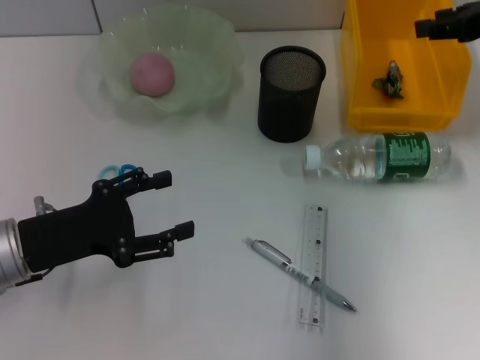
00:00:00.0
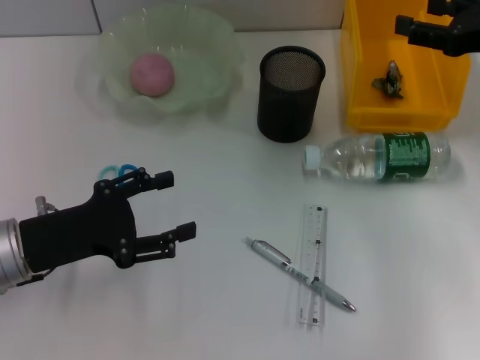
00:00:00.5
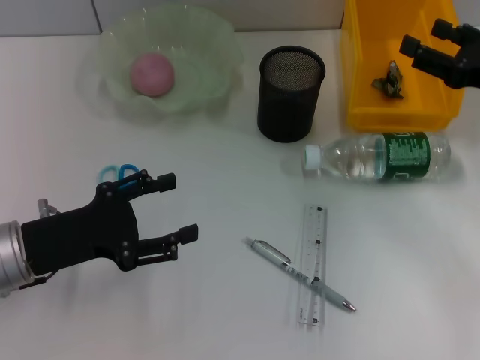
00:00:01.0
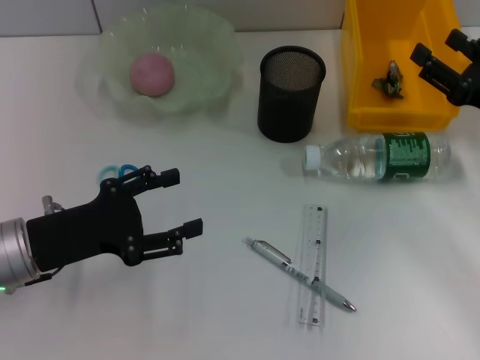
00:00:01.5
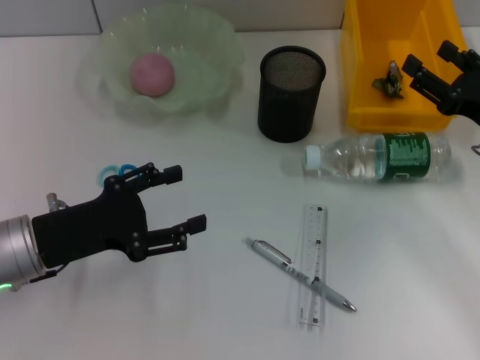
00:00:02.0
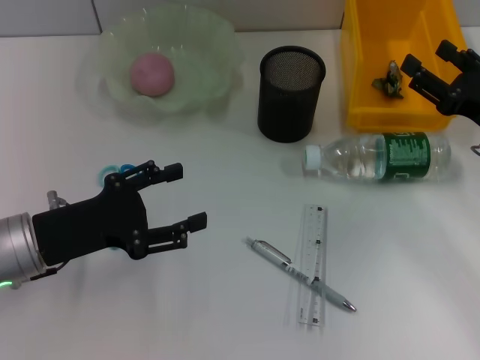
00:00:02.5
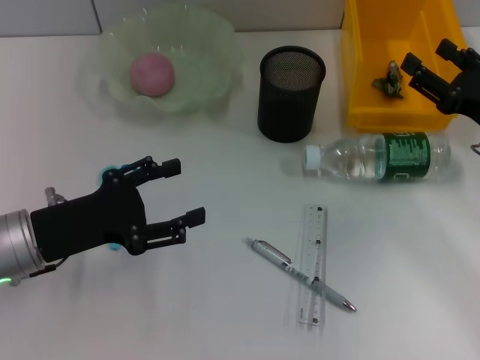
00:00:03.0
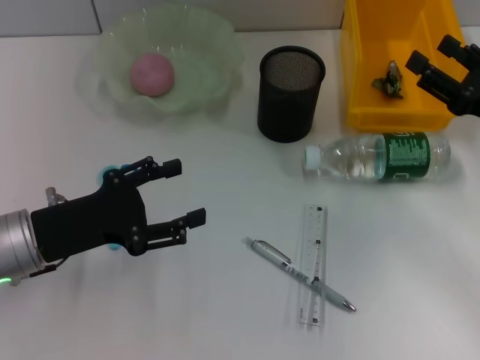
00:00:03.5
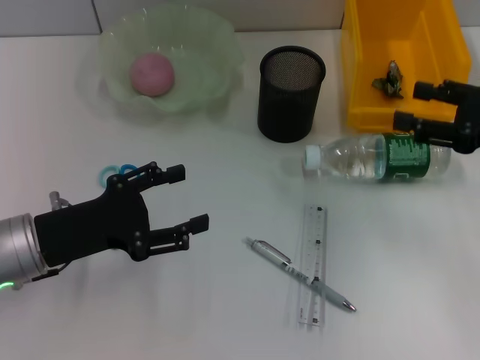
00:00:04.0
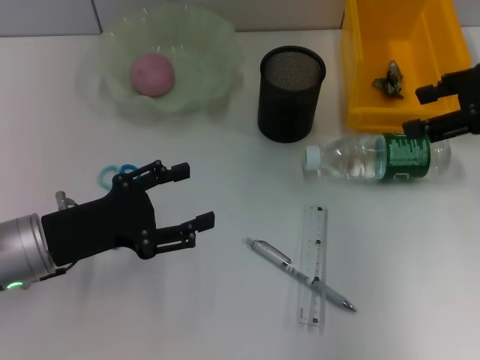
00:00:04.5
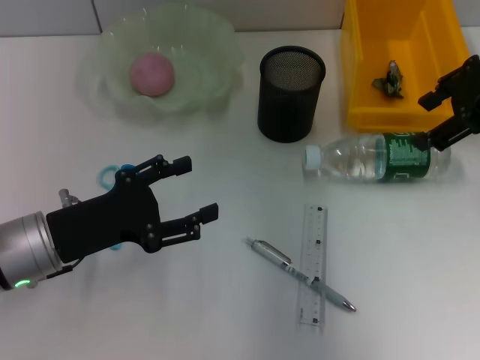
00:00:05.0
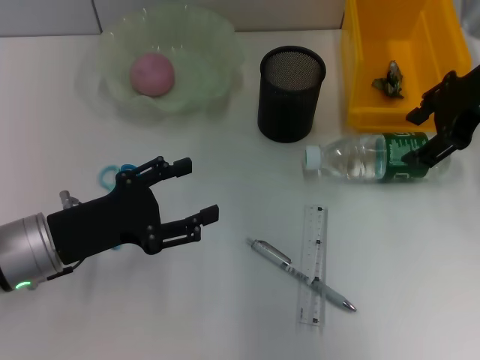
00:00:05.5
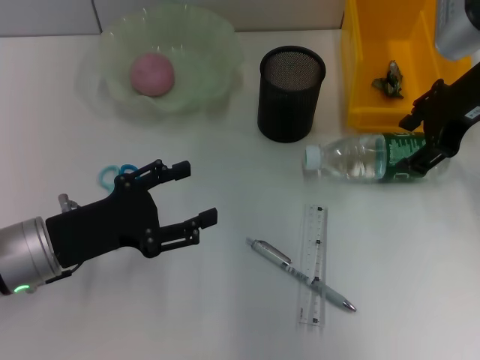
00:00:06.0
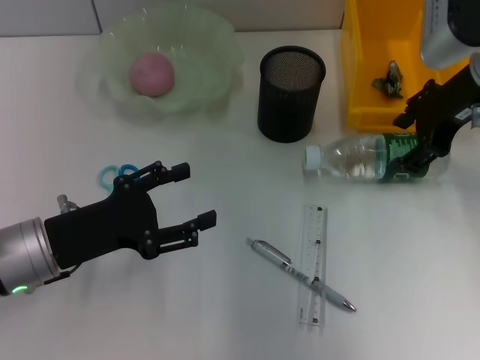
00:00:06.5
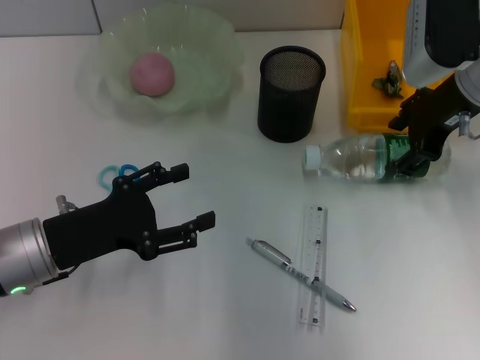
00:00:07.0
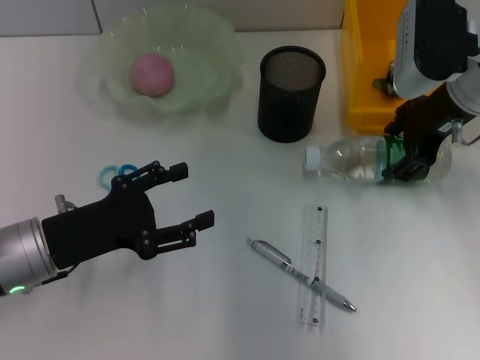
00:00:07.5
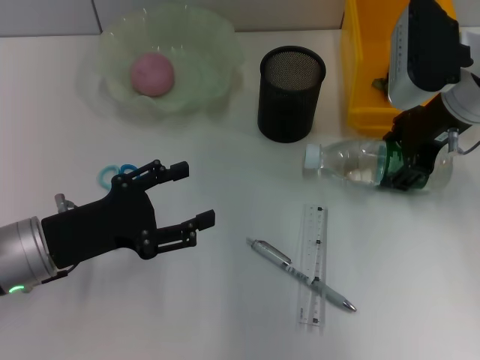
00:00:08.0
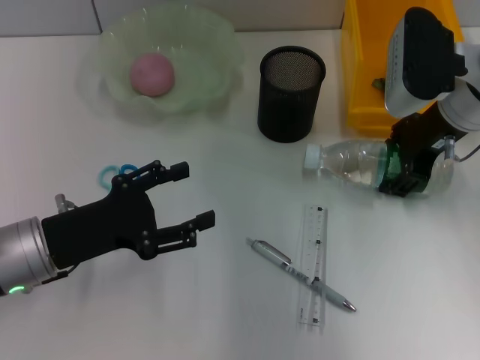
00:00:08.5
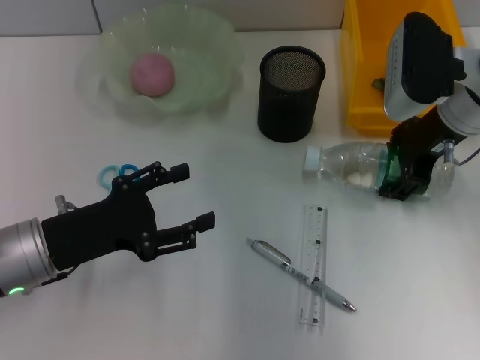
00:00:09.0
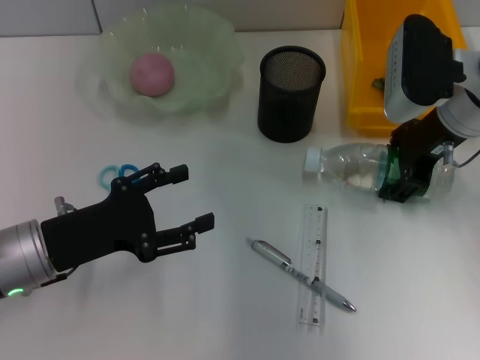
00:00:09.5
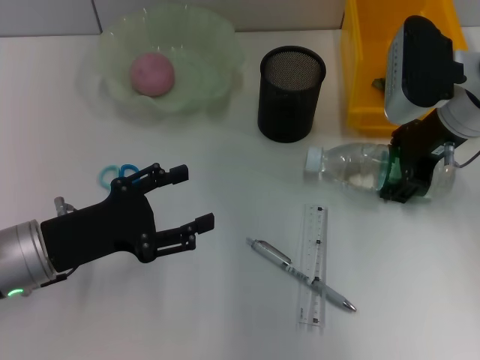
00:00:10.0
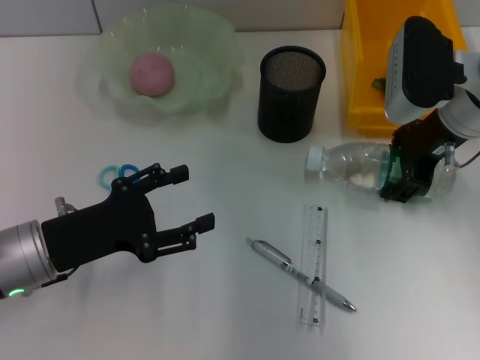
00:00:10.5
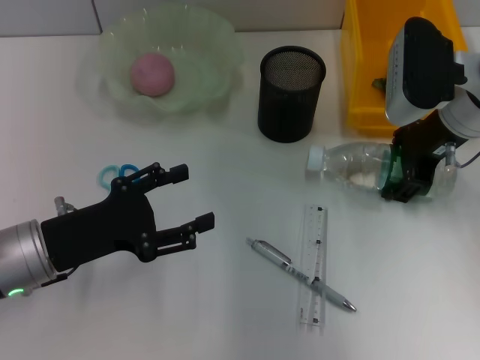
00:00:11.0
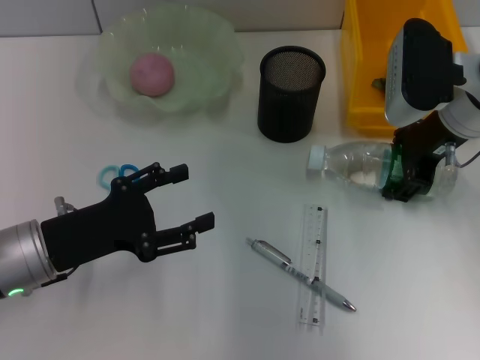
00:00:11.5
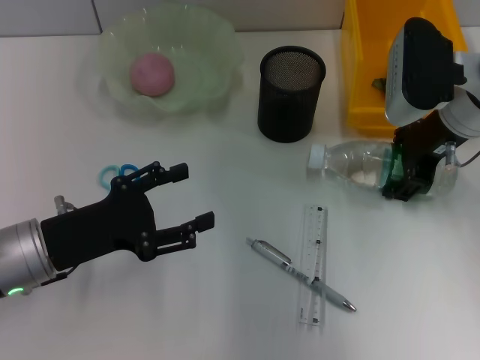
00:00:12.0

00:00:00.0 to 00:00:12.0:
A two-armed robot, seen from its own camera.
00:00:00.0 to 00:00:02.0: The right gripper heads downward and backward, covering roughly 15 cm, and opens up.
00:00:02.0 to 00:00:04.0: The right gripper is displaced upward by roughly 5 cm.
00:00:04.0 to 00:00:06.0: The right gripper shifts some 15 cm to the left, forward and upward.
00:00:06.0 to 00:00:10.0: There are only small adjustments of the grippers.
00:00:10.0 to 00:00:12.0: Both grippers stay put.

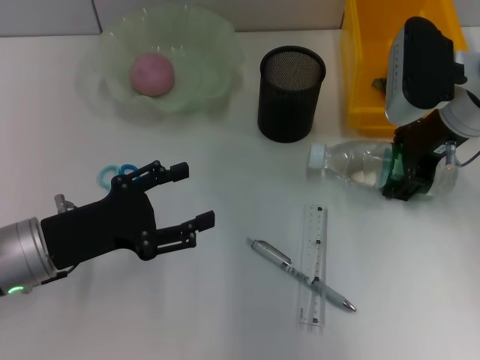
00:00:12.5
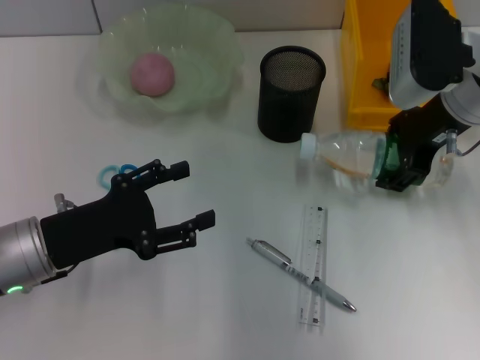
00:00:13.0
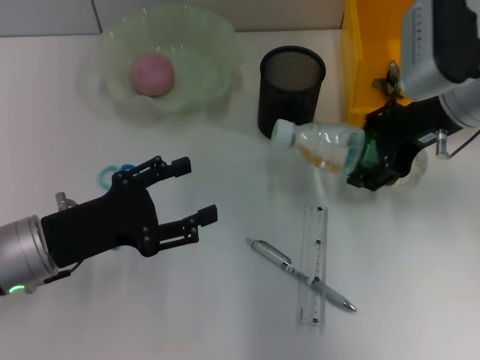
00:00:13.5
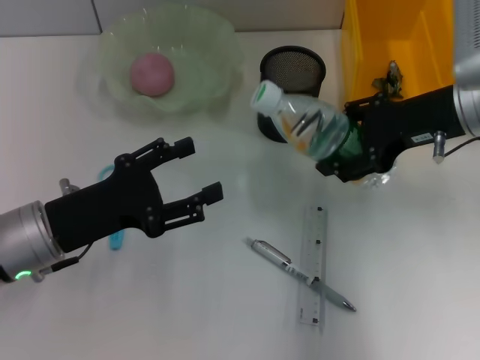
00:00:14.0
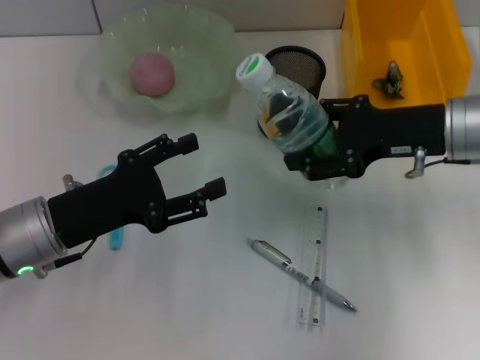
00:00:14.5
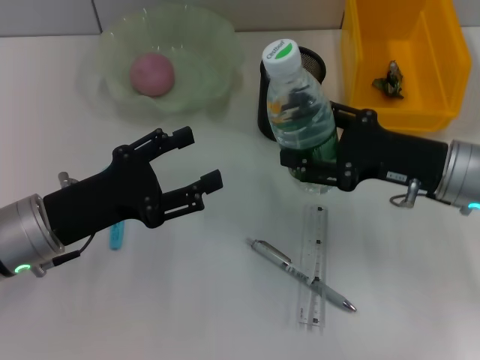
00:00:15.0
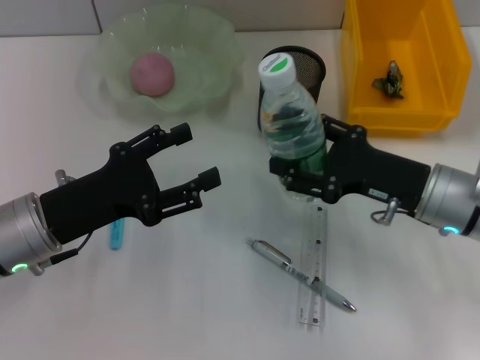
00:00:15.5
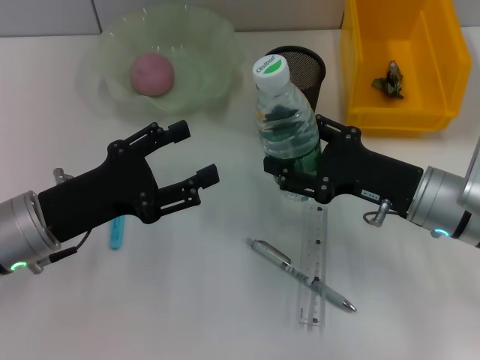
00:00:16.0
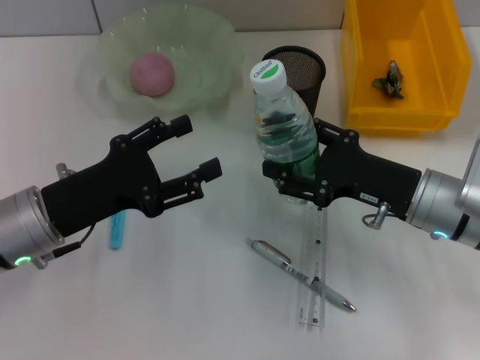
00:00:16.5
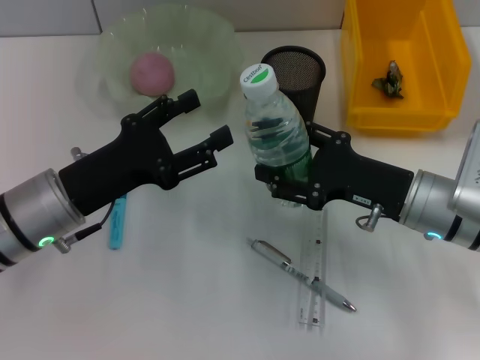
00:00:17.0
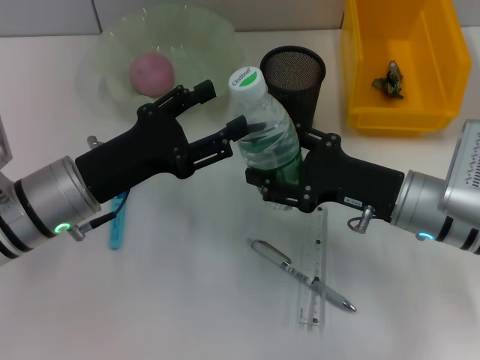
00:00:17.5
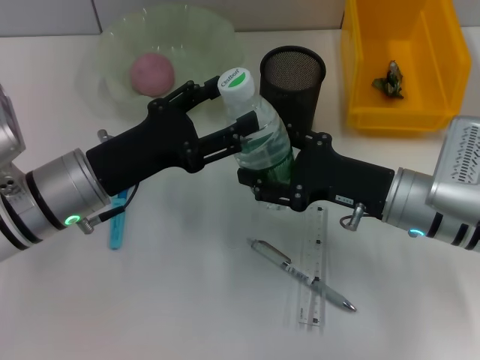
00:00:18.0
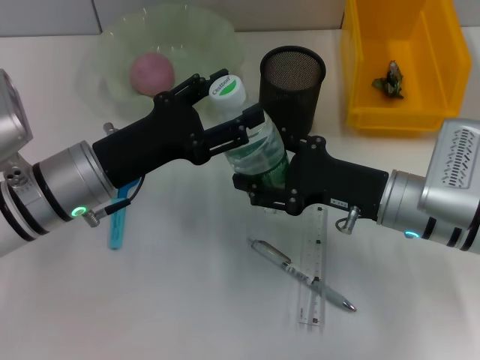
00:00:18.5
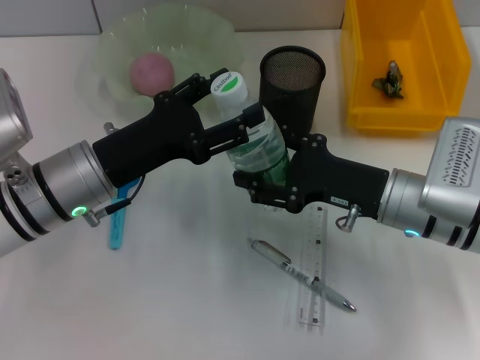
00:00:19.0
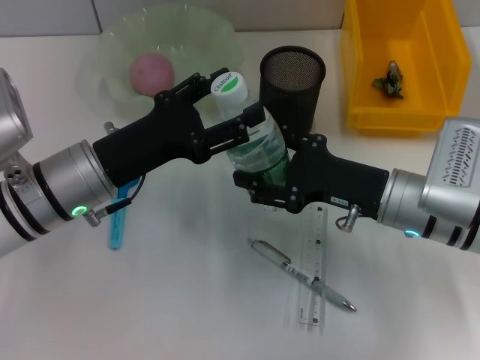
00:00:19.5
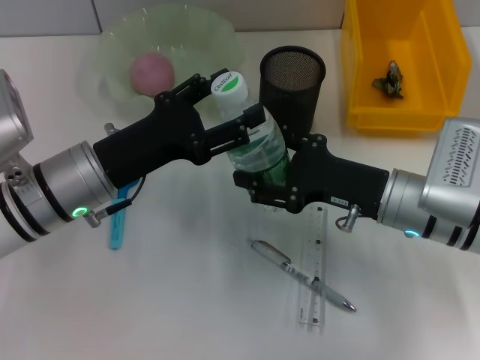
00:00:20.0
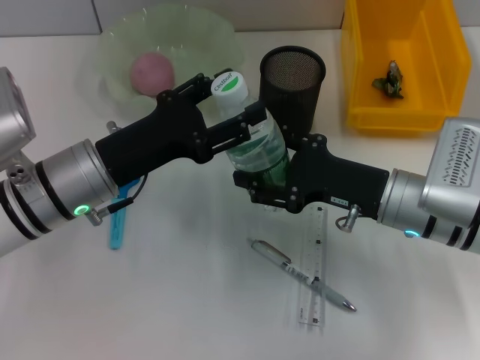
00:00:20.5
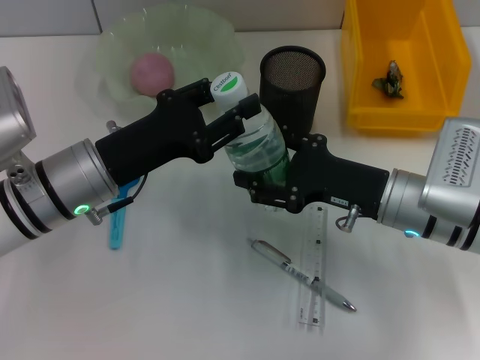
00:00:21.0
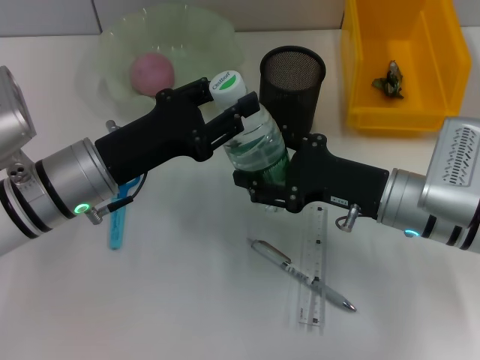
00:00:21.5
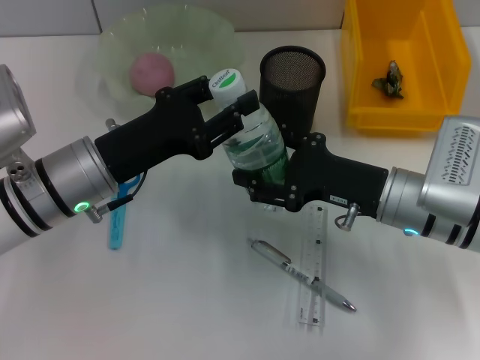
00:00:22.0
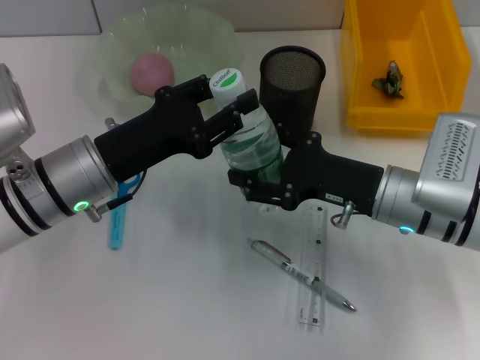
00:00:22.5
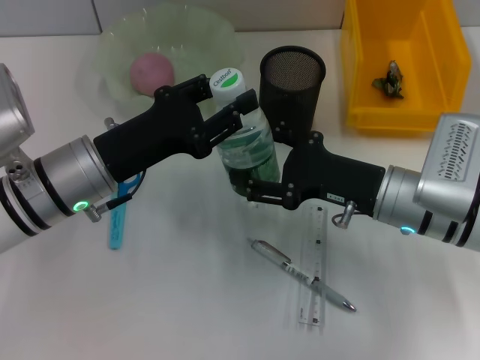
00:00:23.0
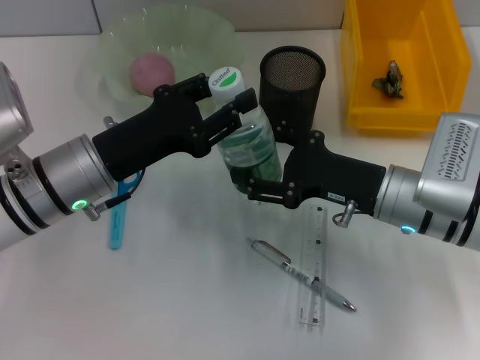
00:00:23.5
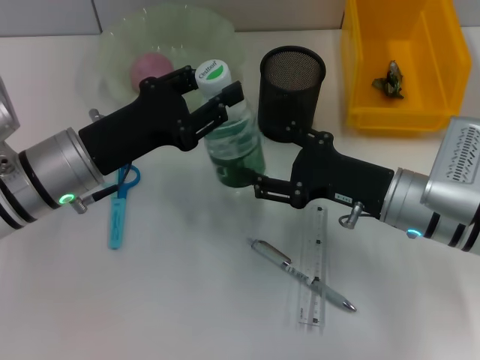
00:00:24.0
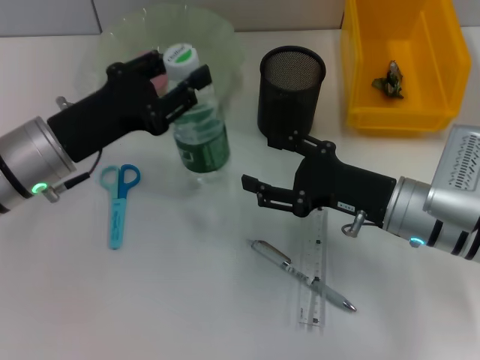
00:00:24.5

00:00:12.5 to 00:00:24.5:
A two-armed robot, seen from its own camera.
Step, 00:00:13.0 to 00:00:24.0: Pass the water bottle from the right hand to the left hand.
00:00:12.5 to 00:00:14.5: The right gripper moves approximately 5 cm.
00:00:14.5 to 00:00:16.5: The right gripper shifts approximately 10 cm downward and backward.
00:00:16.5 to 00:00:18.5: The left gripper changes place by about 5 cm.
00:00:18.5 to 00:00:20.5: Both grippers stay about where they are.
00:00:20.5 to 00:00:22.5: The left gripper closes up.

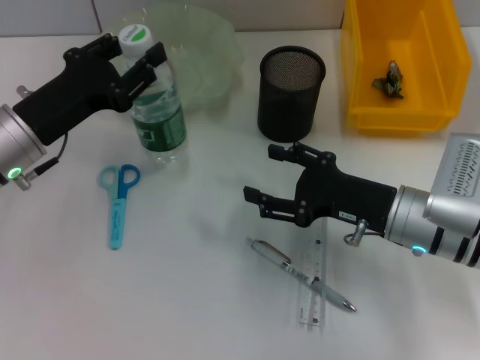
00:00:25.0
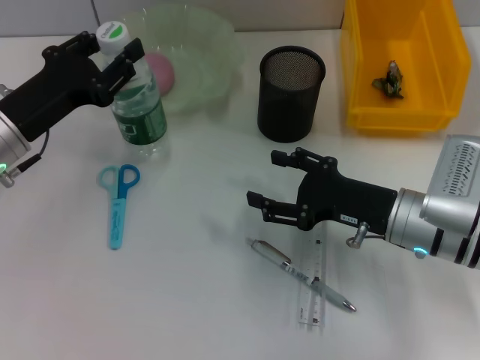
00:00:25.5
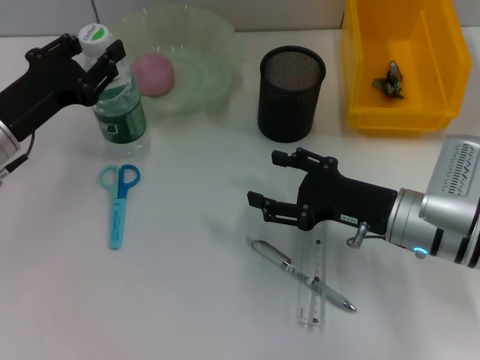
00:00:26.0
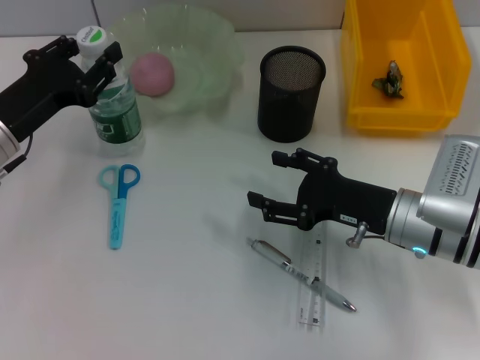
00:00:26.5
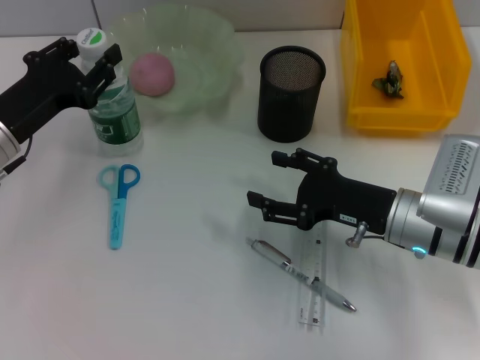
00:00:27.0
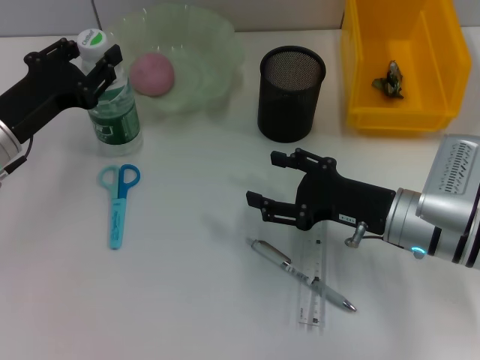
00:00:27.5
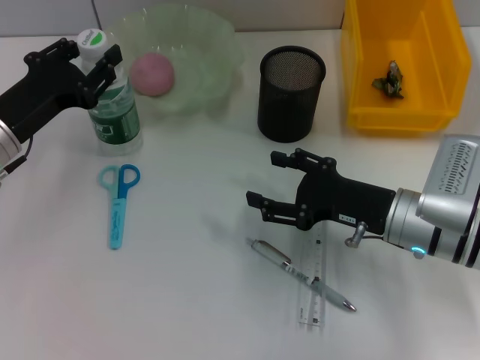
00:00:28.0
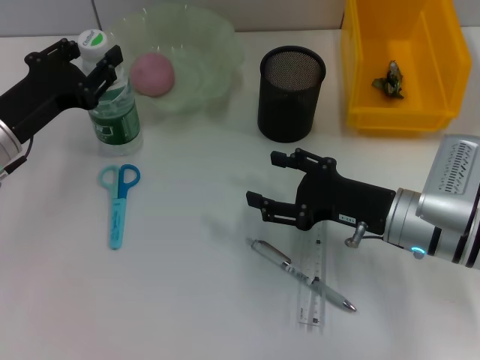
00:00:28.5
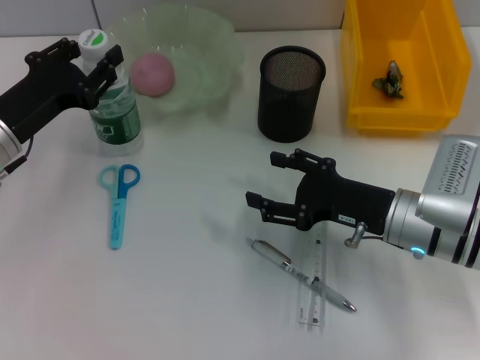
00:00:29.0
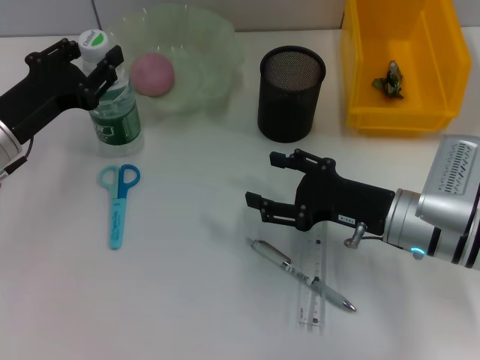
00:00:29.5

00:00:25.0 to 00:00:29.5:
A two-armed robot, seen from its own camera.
00:00:25.0 to 00:00:27.0: There are only small adjustments of the grippers.
00:00:27.0 to 00:00:29.5: Both grippers stay put.
